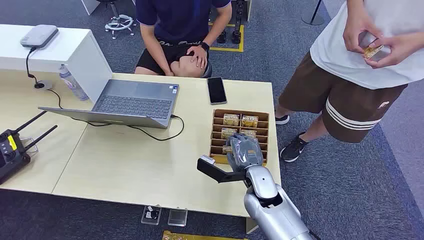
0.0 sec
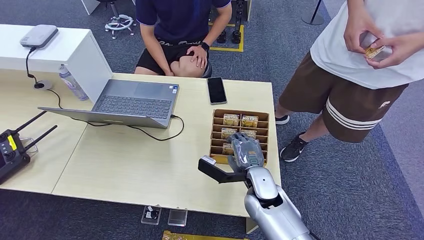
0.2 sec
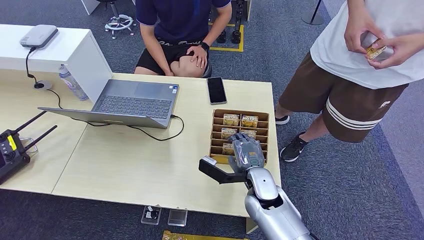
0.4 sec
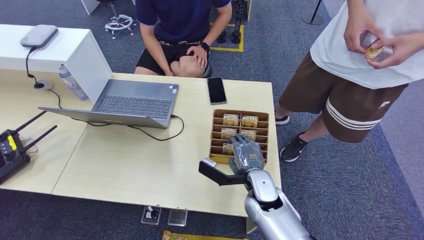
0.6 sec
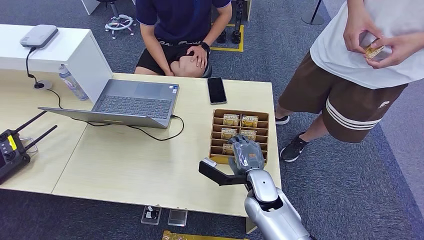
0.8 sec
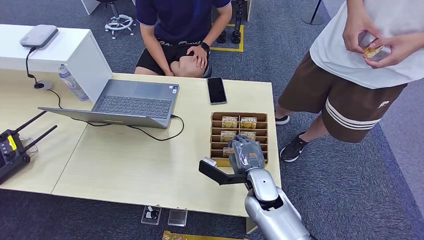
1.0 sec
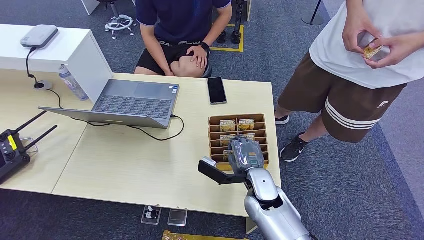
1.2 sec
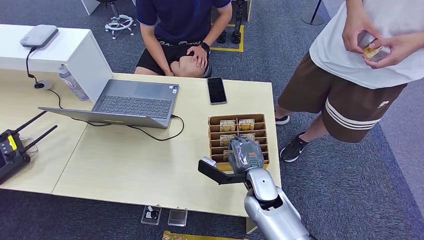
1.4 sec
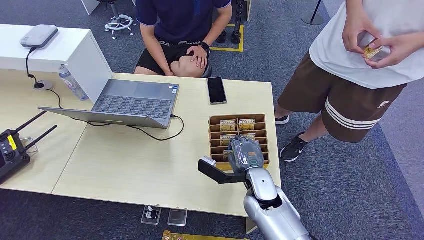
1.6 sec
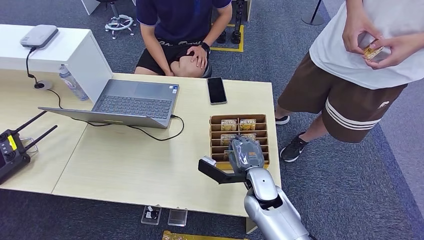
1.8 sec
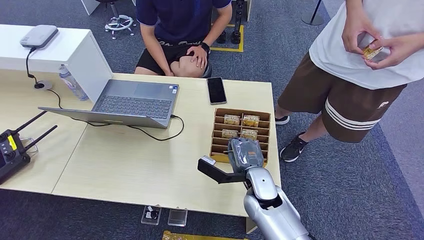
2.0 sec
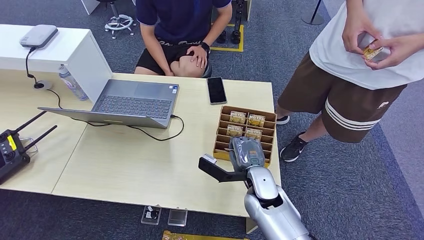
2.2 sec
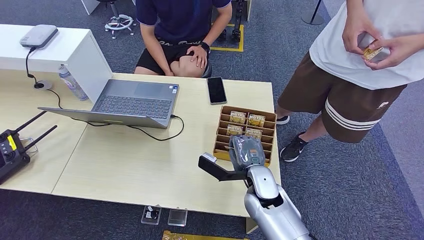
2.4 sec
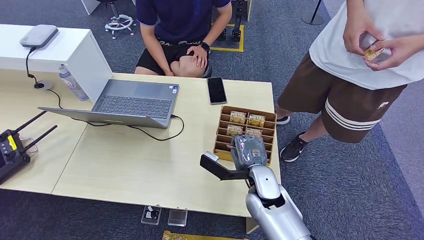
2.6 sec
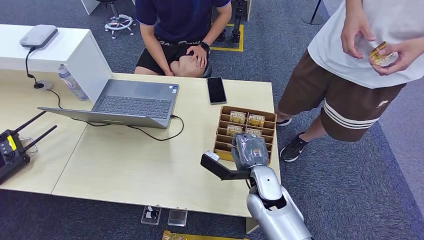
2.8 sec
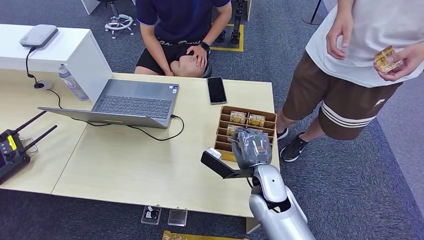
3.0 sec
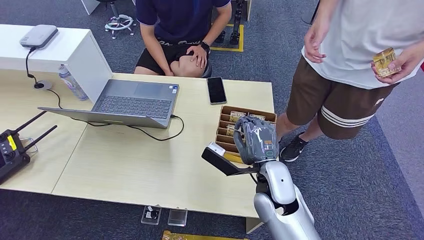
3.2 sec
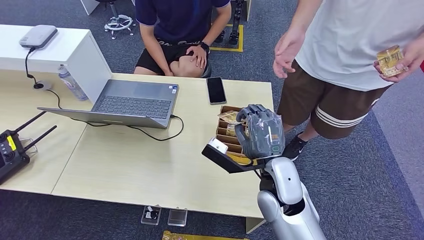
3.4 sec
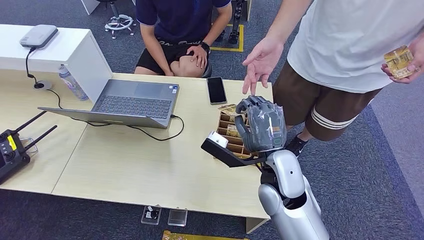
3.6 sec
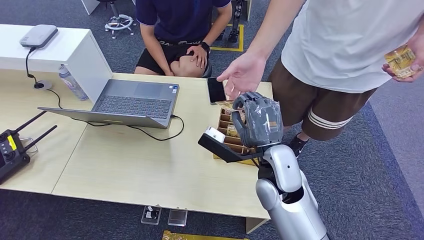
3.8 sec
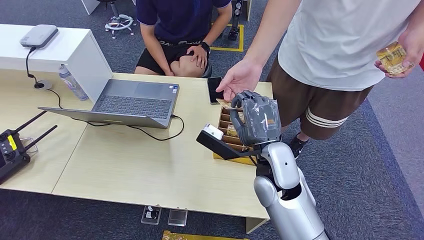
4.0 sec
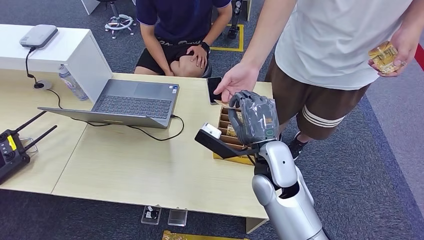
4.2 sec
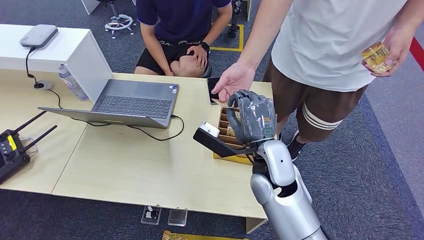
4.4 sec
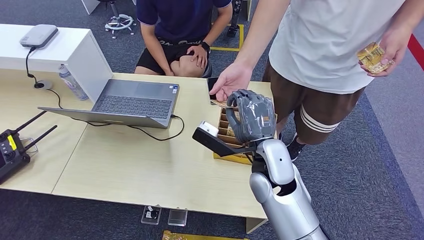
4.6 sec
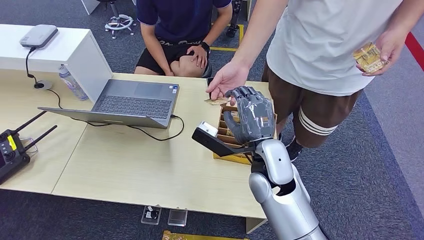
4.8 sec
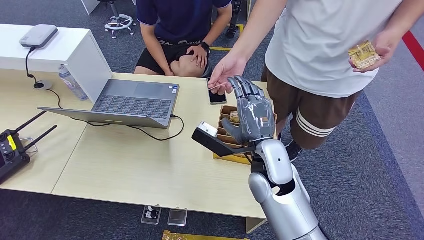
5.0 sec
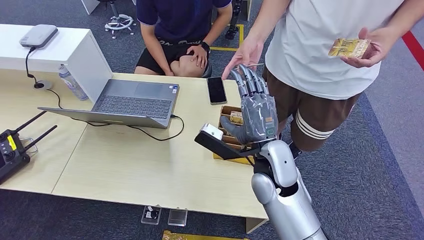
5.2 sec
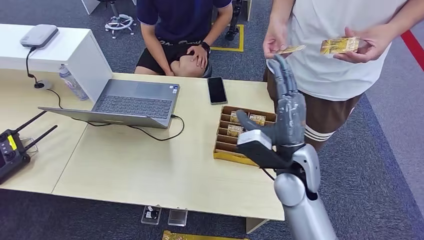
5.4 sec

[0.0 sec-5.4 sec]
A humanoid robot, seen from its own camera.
Step, 0.0 sec to 3.4 sec: Pick up the key card from the card box.
Step, 3.8 sec to 5.2 sec: Hand the key card to the target.
1.4 sec to 2.8 sec: There are only small adjustments of the hands.
